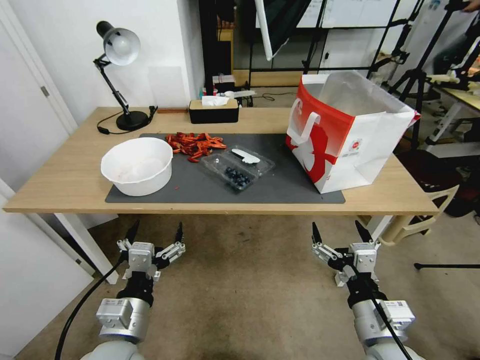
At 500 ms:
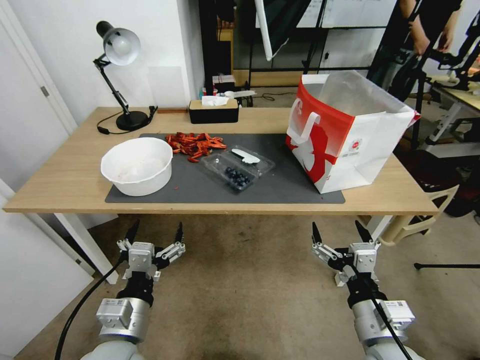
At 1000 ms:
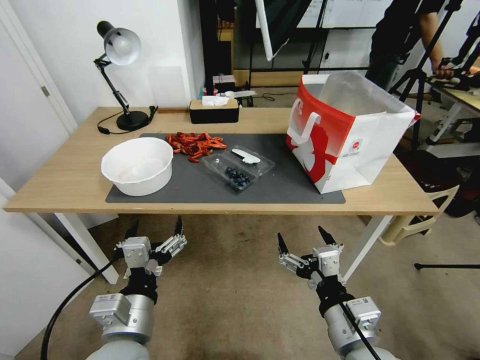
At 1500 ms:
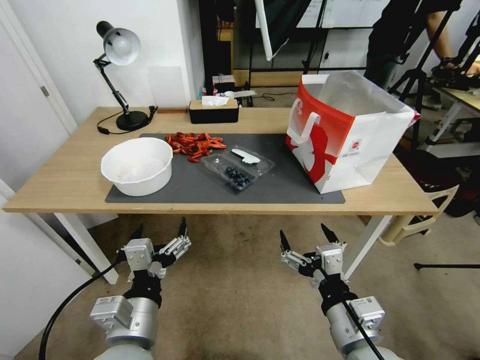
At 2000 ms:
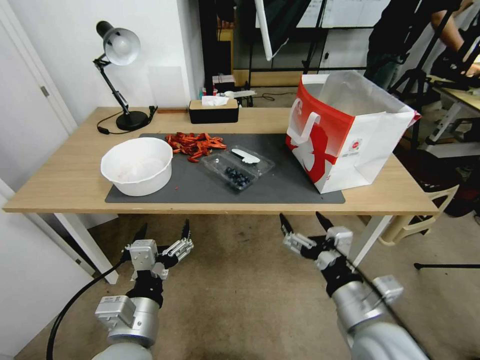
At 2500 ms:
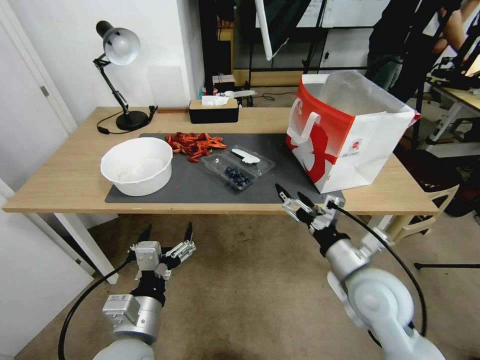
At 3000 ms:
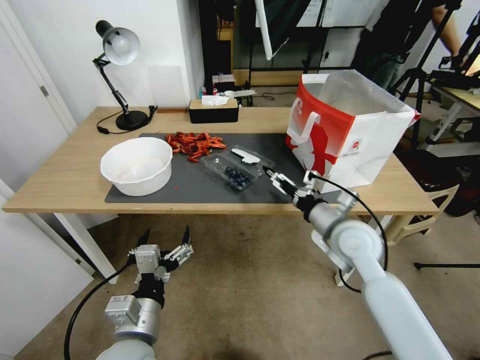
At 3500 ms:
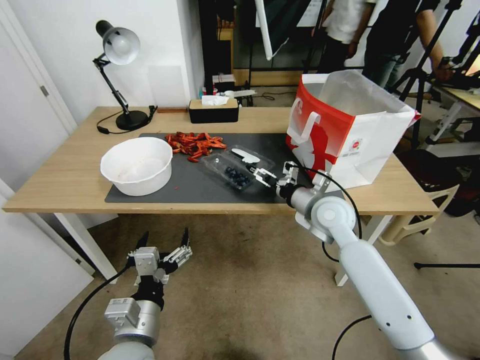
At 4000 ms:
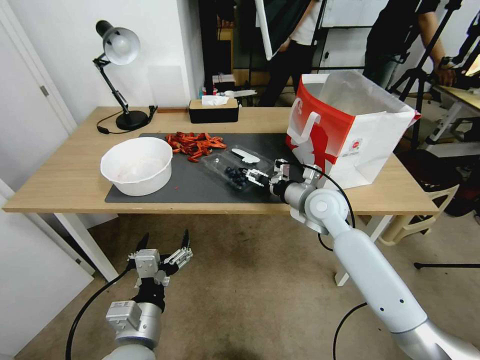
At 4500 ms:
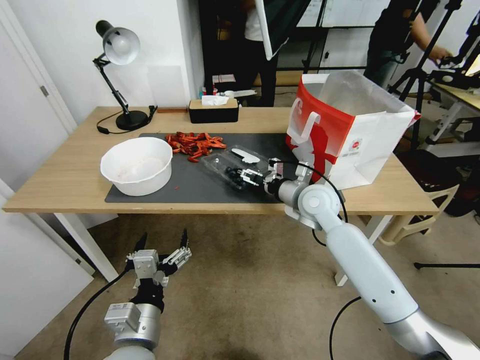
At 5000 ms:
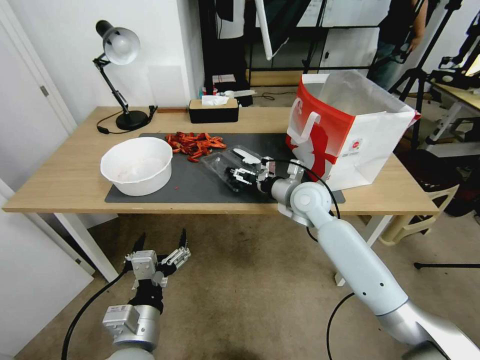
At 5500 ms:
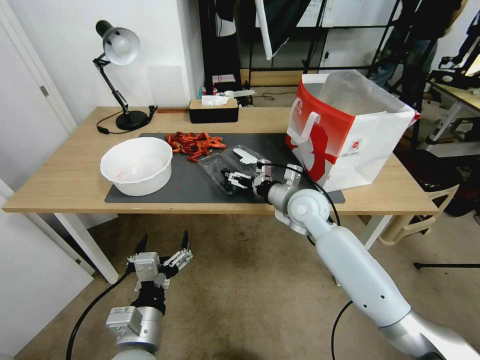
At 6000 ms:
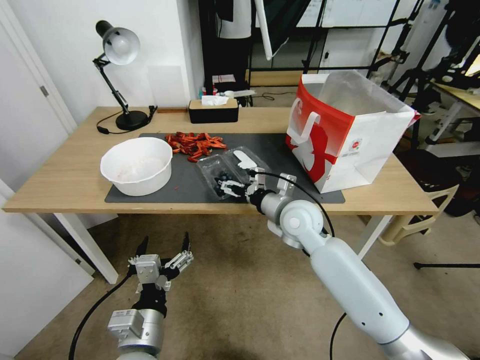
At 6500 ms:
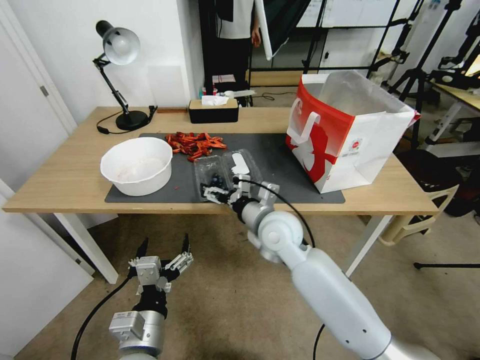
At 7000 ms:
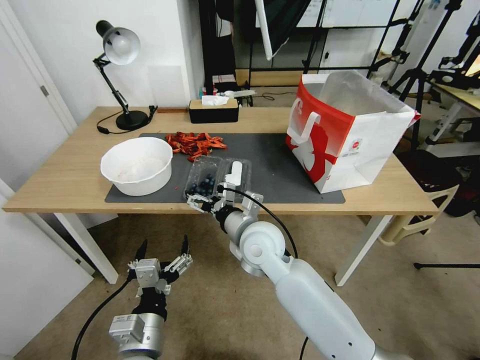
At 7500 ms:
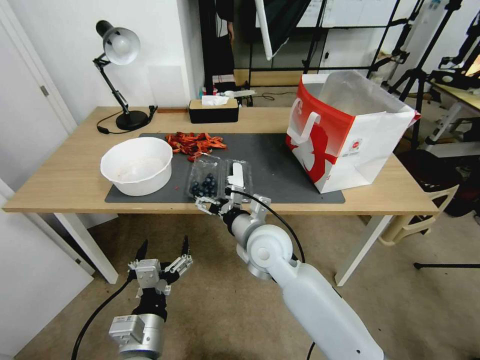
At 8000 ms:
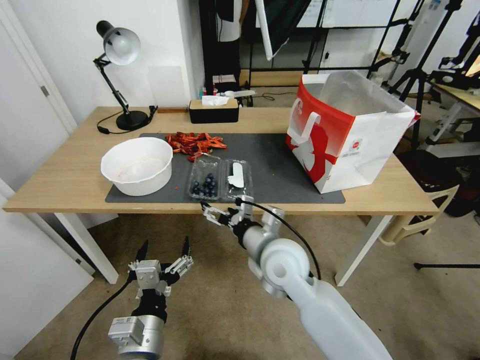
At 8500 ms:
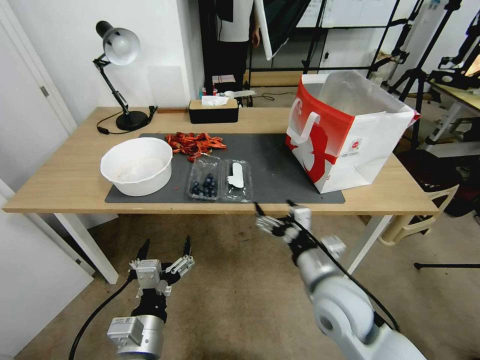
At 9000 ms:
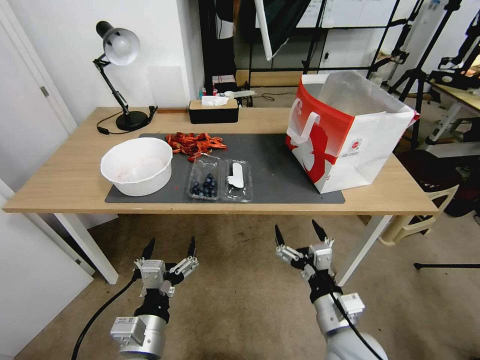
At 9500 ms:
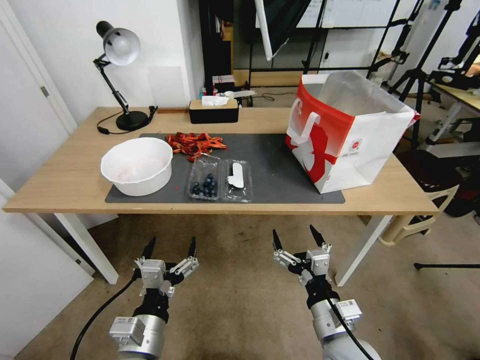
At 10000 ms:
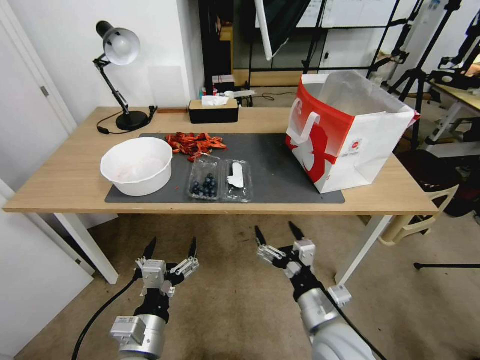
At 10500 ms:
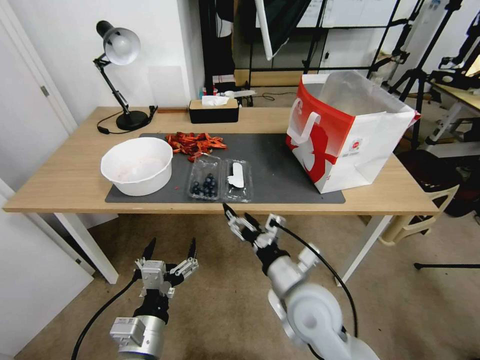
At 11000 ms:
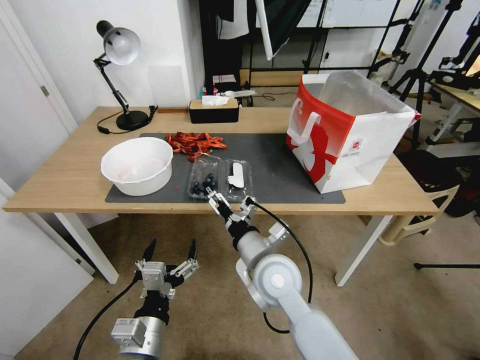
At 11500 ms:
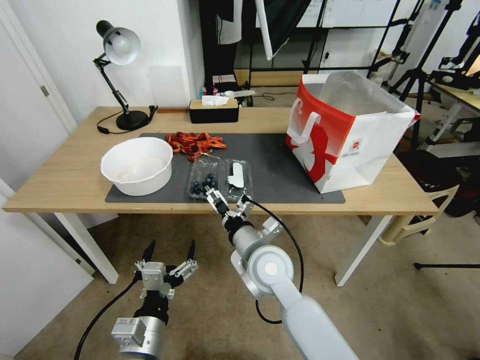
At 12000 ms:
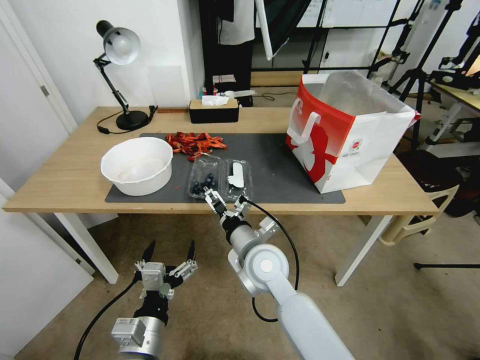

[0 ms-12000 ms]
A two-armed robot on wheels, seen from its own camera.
Task of the whole recording: Close the takeout container lid, then place the container into the takeout bag.
2000 ms to 4000 ms: The right gripper goes about 30 cm forward.
4000 ms to 6000 ms: The right gripper travels to the left by roughly 5 cm.
6000 ms to 8000 ms: The right gripper is displaced backward and to the left by roughly 10 cm.
8000 ms to 10000 ms: The right gripper travels backward, to the right and downward by some 20 cm.
10000 ms to 12000 ms: The right gripper shifts roughly 20 cm forward and to the left.

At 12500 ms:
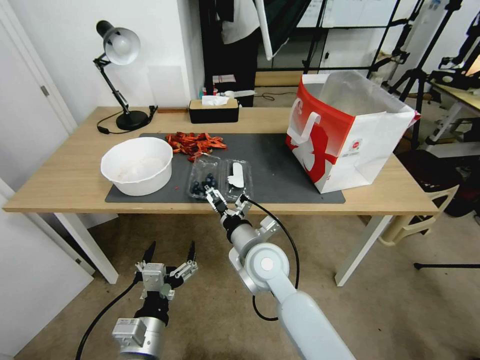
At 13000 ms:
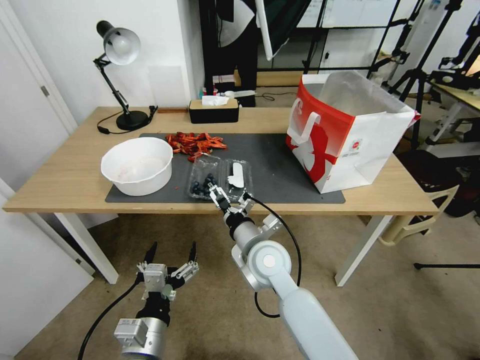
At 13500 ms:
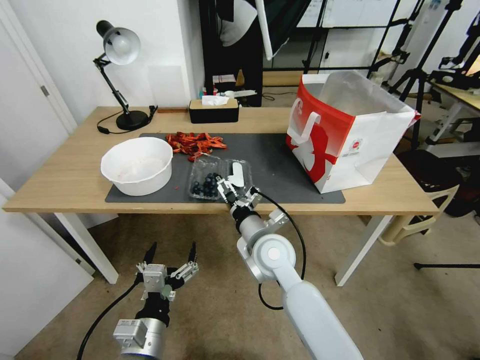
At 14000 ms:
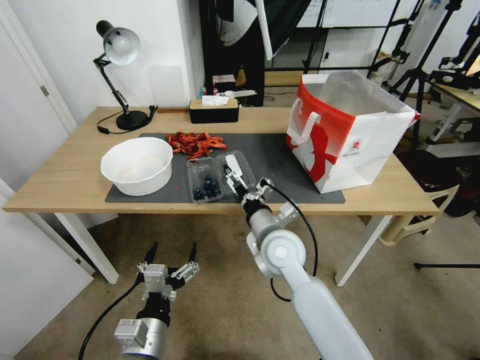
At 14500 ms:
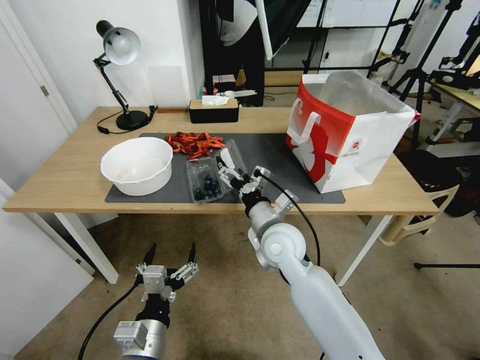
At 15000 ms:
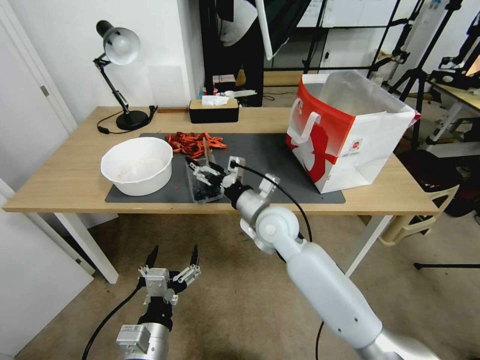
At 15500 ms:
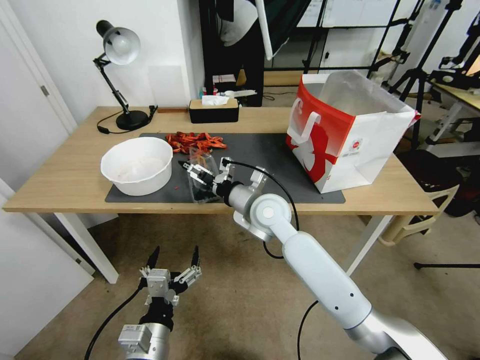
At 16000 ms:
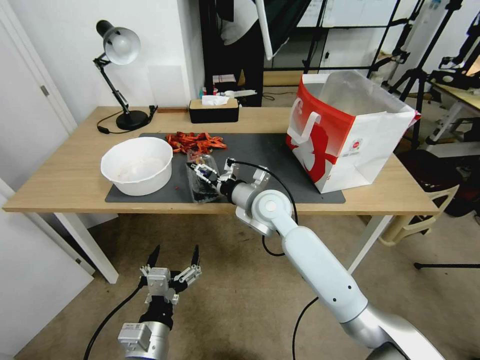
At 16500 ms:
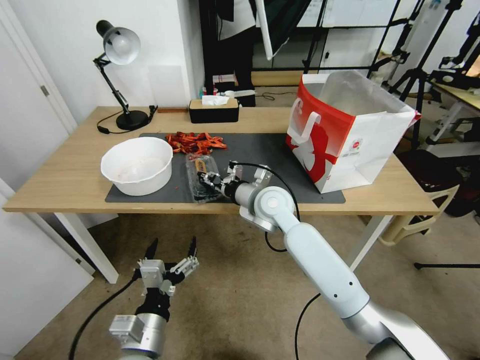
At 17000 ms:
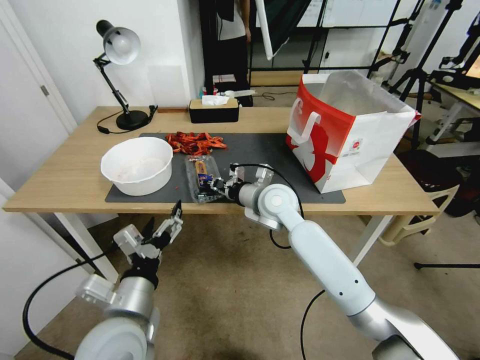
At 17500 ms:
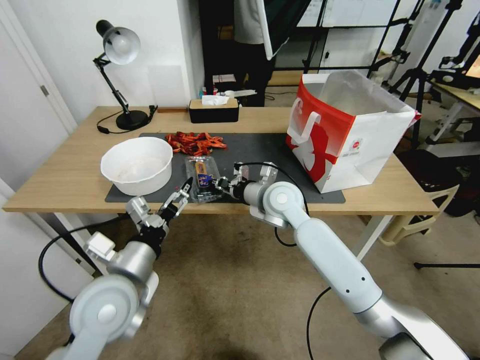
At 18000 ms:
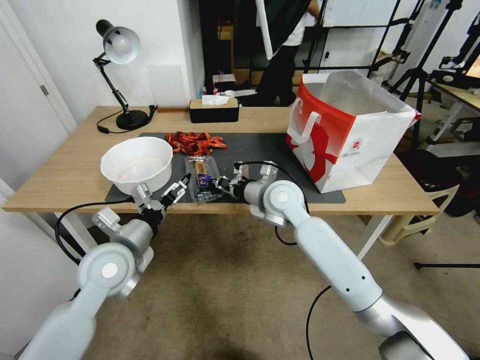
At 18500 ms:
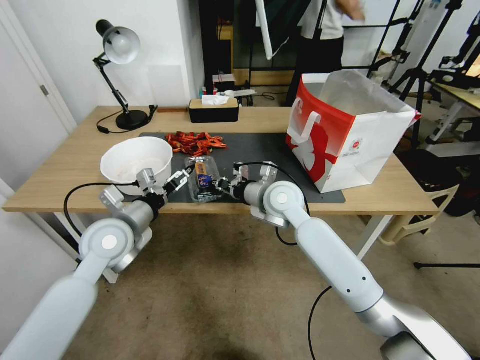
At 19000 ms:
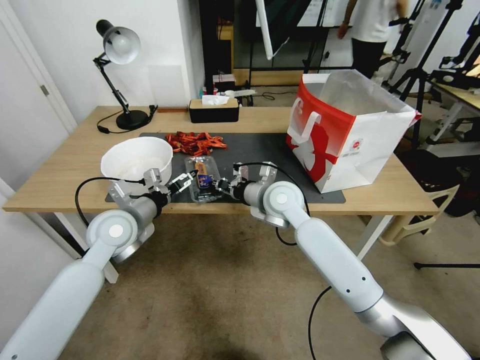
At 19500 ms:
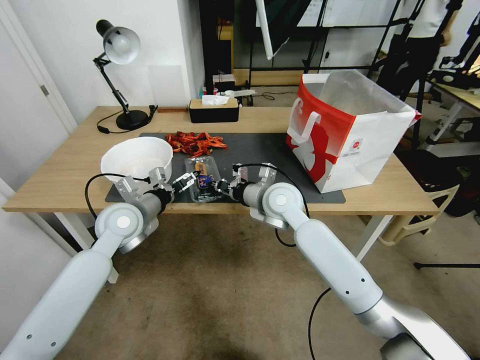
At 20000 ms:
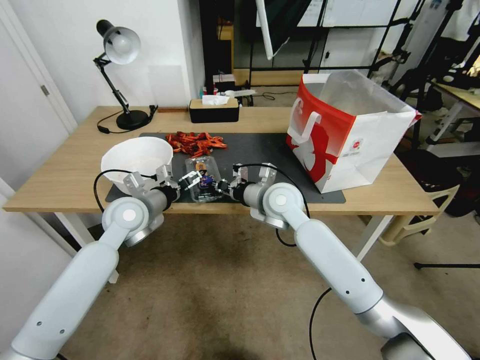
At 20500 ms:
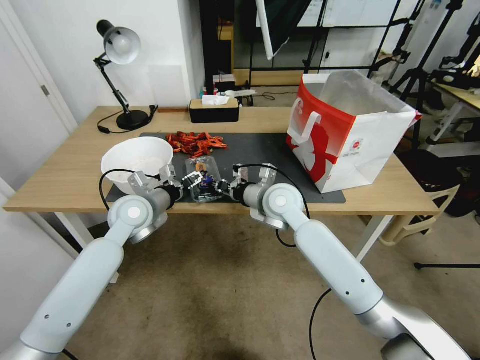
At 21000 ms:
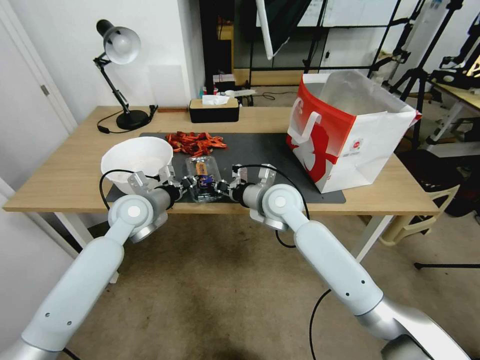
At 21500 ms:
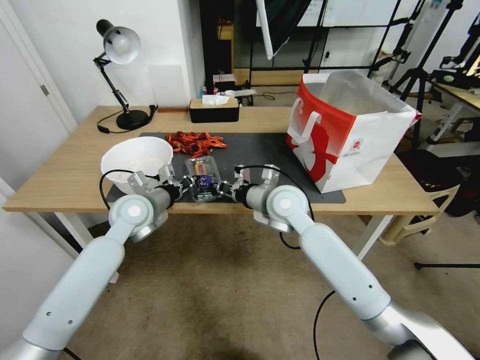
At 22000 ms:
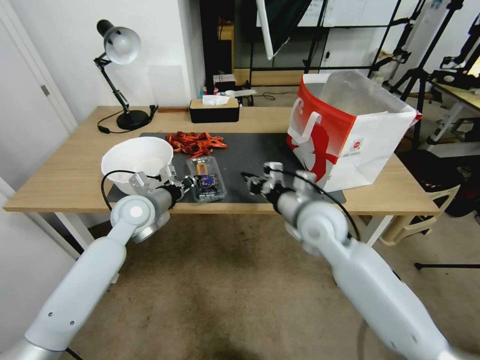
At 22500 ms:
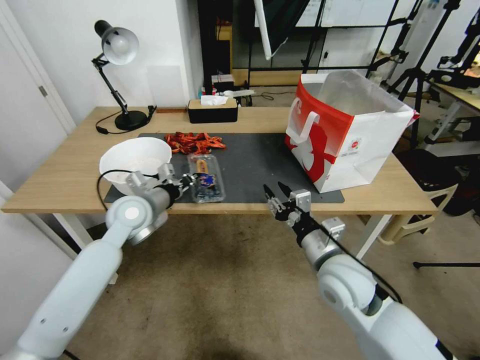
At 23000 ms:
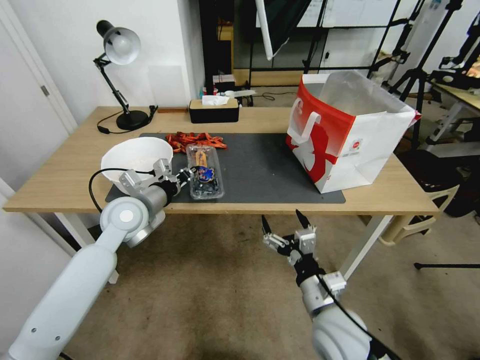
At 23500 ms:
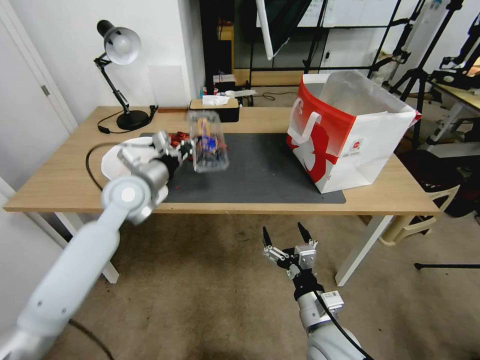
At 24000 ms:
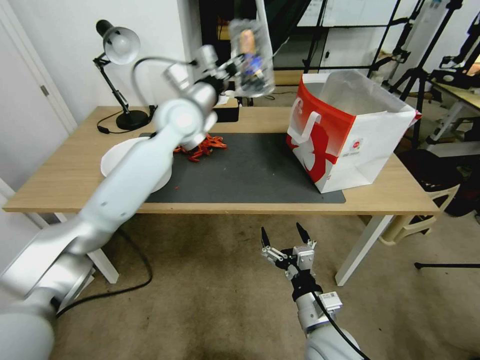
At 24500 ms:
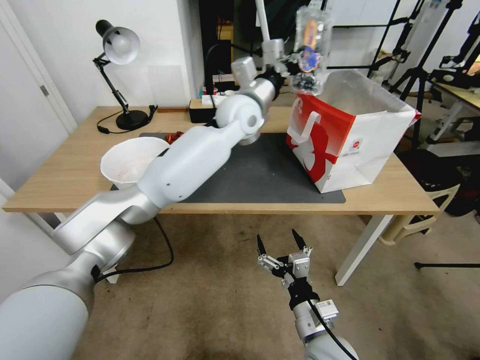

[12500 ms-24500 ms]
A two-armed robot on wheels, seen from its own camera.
Task of the whole recording: Close the takeout container lid, then place the container into the takeout bag.
12500 ms to 14500 ms: The right gripper moves some 5 cm.
14500 ms to 16500 ms: The right gripper shifts approximately 10 cm forward, and closes.
16500 ms to 18500 ms: The left gripper heads forward and upward, covering roughly 25 cm.
18500 ms to 20500 ms: The left gripper moves forward, some 10 cm.
20500 ms to 22500 ms: The left gripper closes. Meanwhile the right gripper moves backward and to the right, approximately 20 cm, and opens up.
22500 ms to 24500 ms: The left gripper shifts roughly 35 cm to the right, upward and forward. The right gripper goes about 15 cm backward and downward, and opens its fingers.

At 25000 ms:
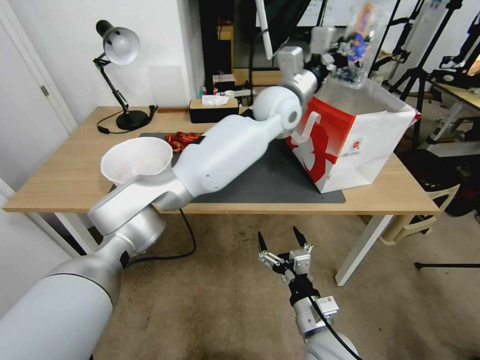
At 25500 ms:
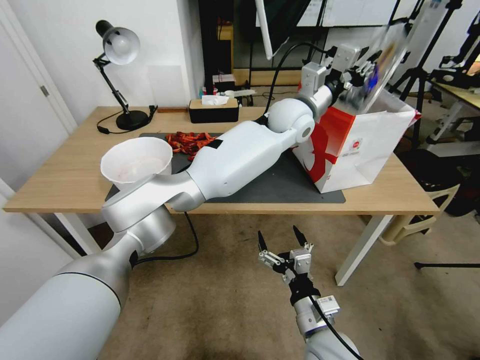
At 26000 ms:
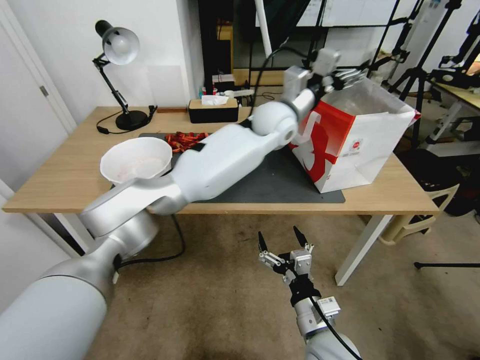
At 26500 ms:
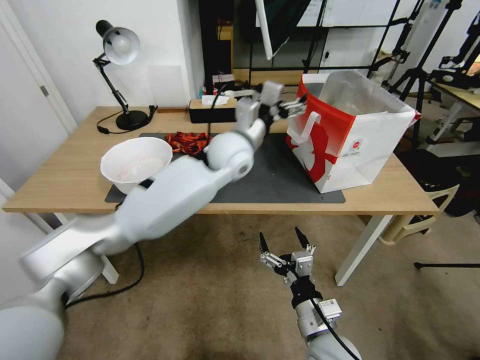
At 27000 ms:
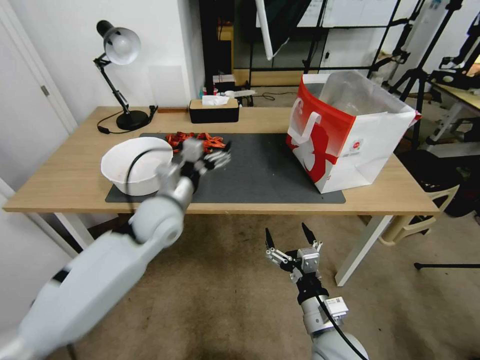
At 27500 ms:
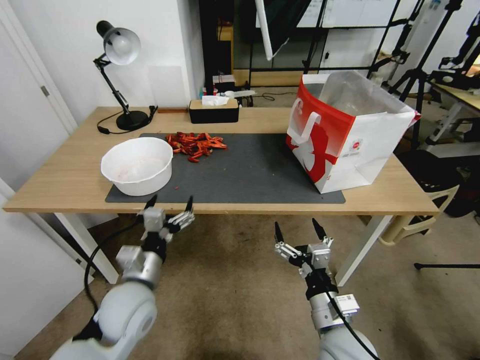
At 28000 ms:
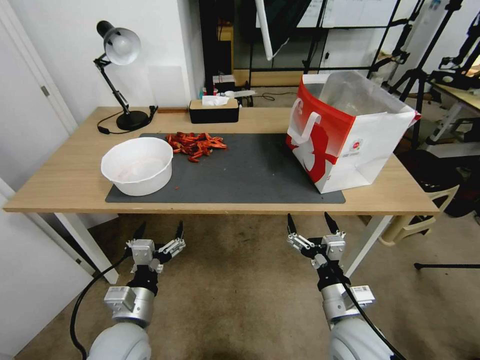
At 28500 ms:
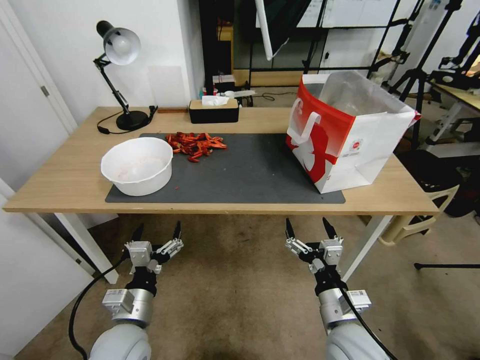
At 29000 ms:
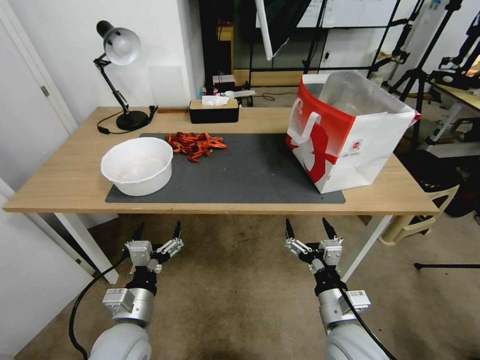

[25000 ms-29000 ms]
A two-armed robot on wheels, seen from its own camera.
Task of the whole recording: Close the takeout container lid, then place the container into the takeout bag.
25000 ms to 27000 ms: The left gripper heads to the left, backward and downward, covering approximately 35 cm, and opens its fingers.
27000 ms to 29000 ms: The left gripper moves backward and downward, approximately 25 cm.
